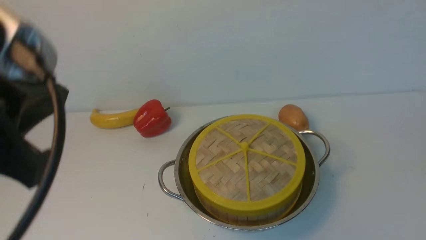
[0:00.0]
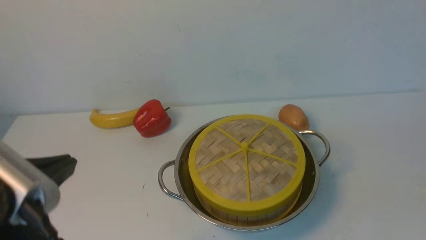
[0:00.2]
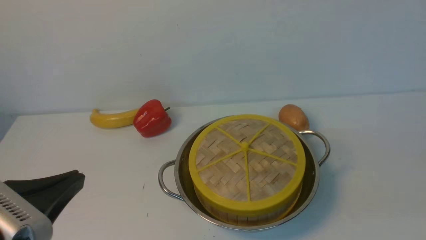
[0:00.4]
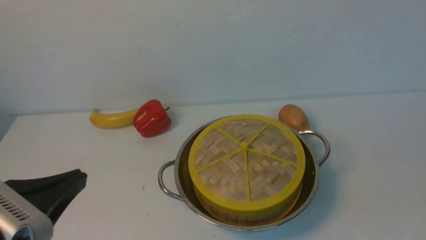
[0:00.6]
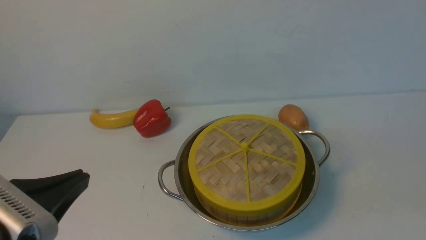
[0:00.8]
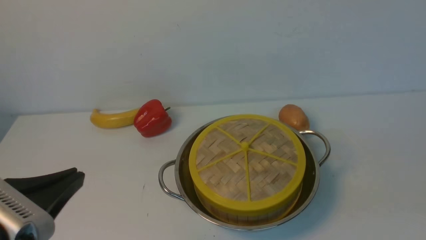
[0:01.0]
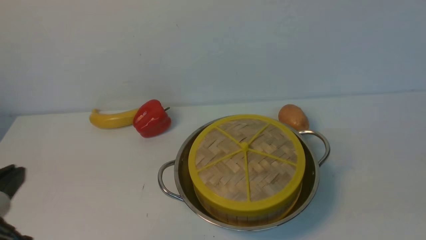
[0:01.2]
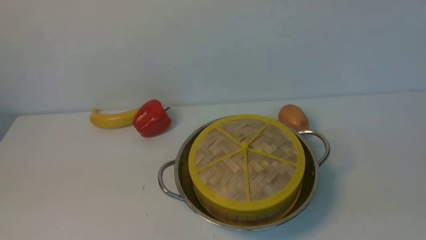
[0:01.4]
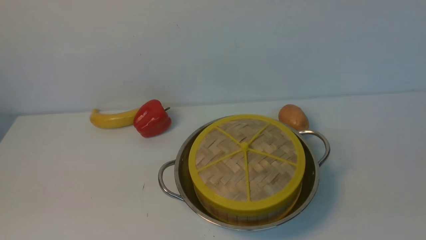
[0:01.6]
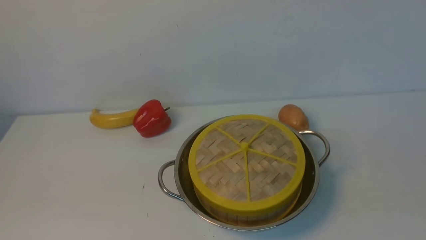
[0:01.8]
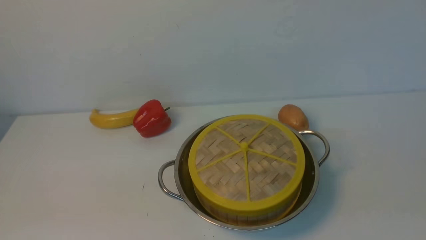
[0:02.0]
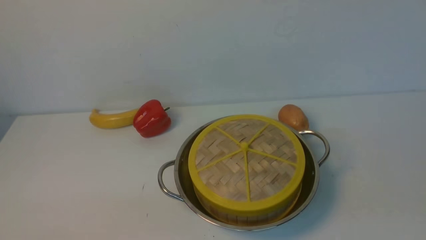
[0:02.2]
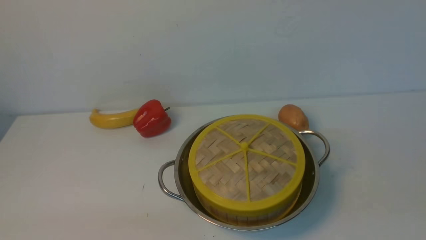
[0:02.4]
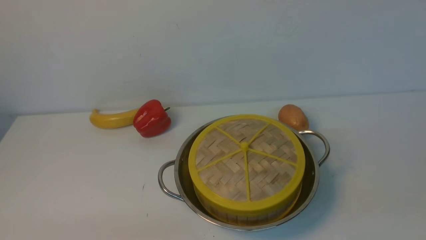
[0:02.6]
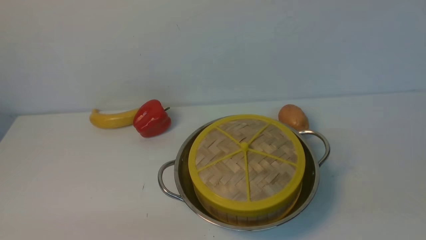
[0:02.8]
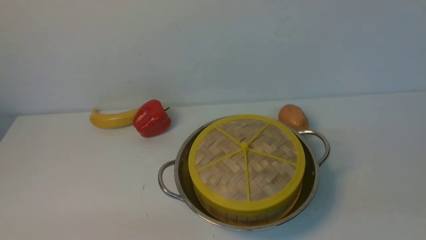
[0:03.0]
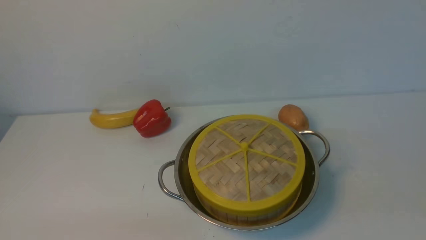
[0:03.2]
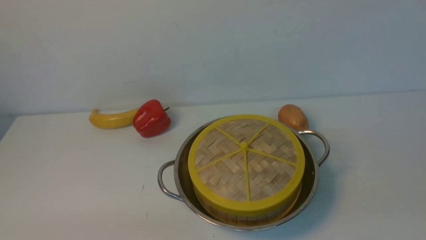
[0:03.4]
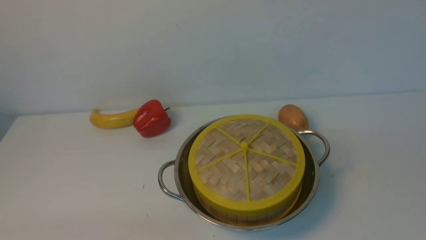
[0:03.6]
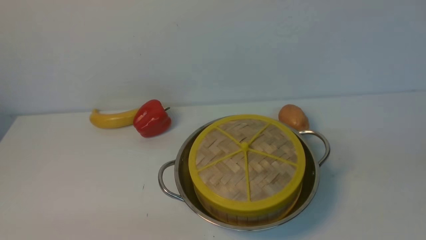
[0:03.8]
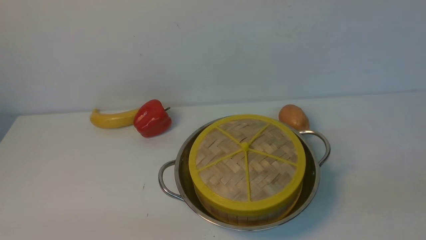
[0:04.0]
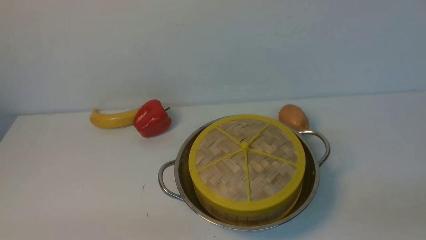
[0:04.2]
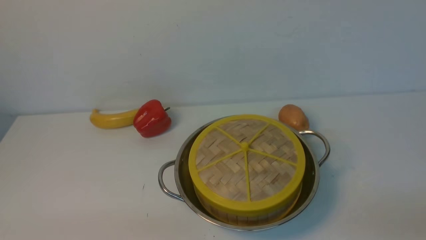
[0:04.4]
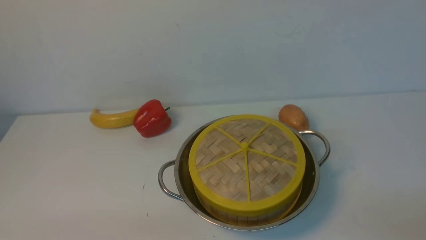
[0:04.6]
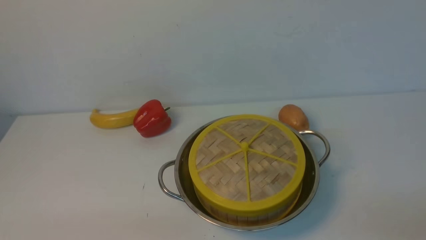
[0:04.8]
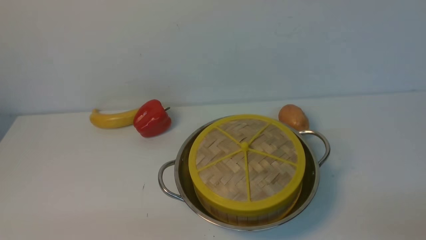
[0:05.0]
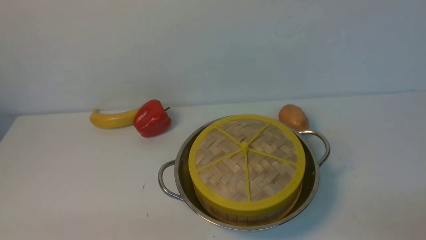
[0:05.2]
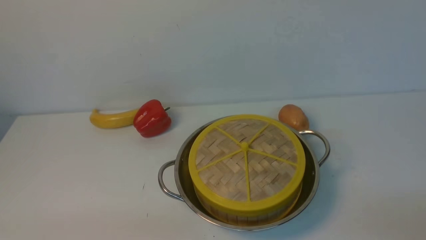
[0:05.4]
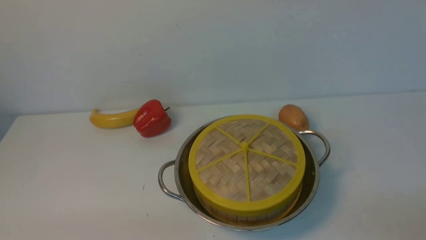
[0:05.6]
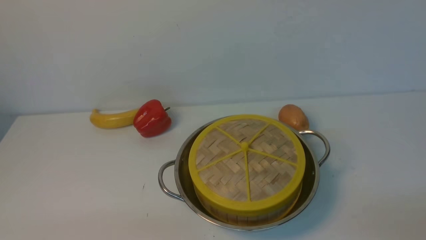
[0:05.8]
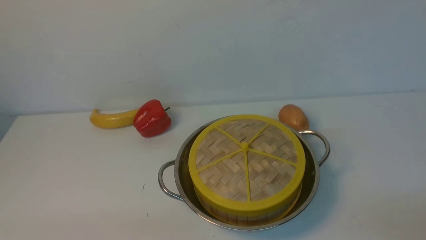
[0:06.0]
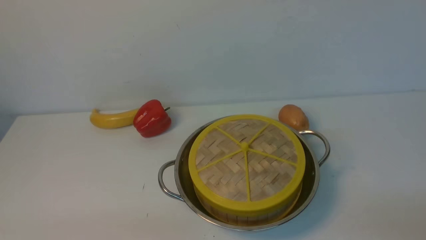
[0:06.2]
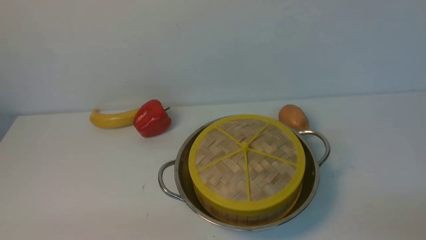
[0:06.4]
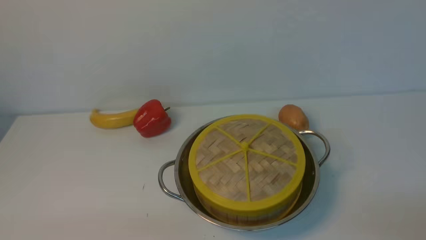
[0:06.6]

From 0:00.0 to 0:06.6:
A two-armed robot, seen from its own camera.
Task of the whole recording: place the steamer in the pot on the white table, and put the lid on the steamer.
From 0:00.0 to 0:01.6: The left gripper goes roughly 15 cm downward, backward and to the left.
From 0:05.0 to 0:06.6: Neither gripper changes place.

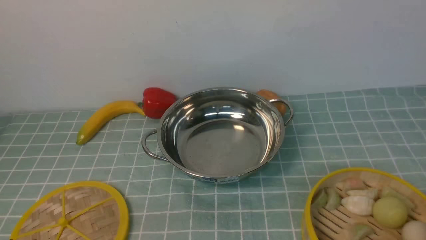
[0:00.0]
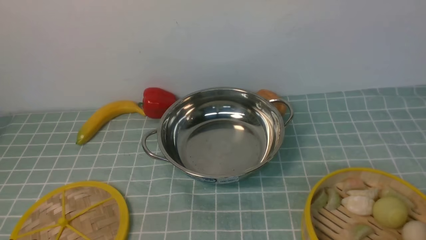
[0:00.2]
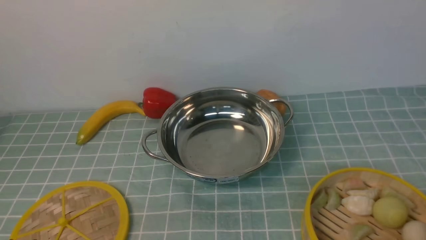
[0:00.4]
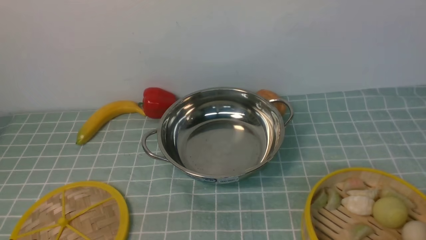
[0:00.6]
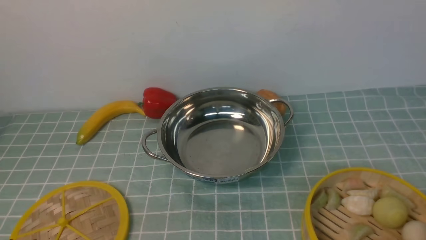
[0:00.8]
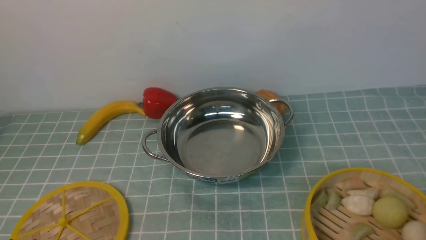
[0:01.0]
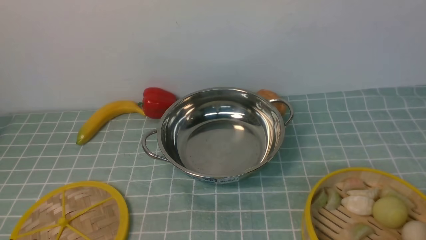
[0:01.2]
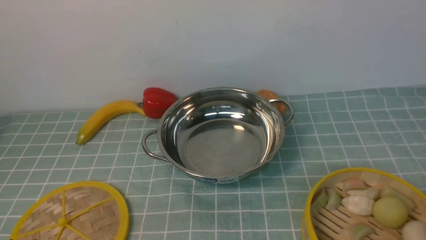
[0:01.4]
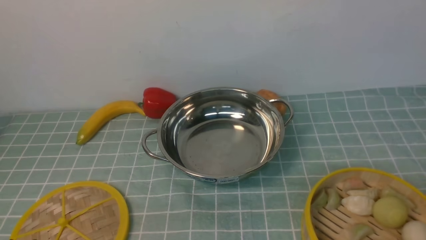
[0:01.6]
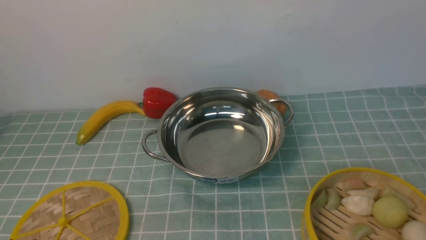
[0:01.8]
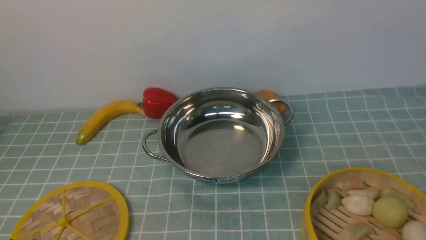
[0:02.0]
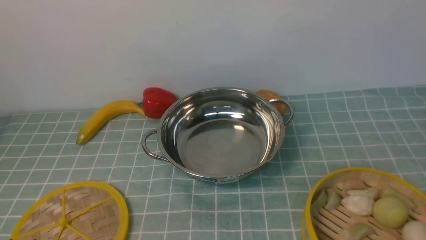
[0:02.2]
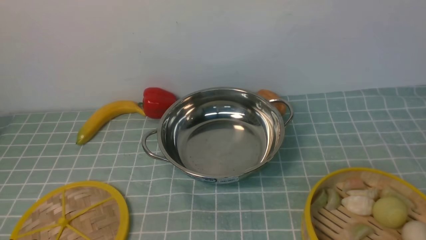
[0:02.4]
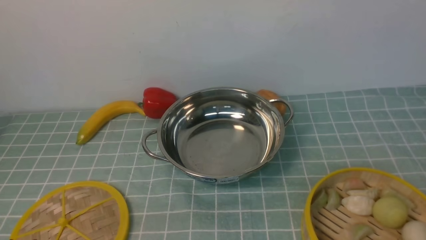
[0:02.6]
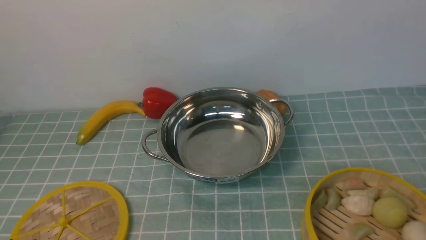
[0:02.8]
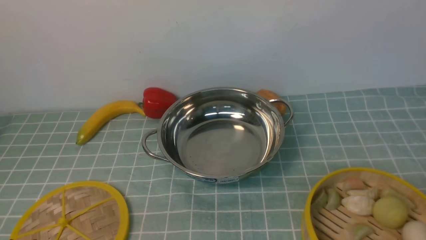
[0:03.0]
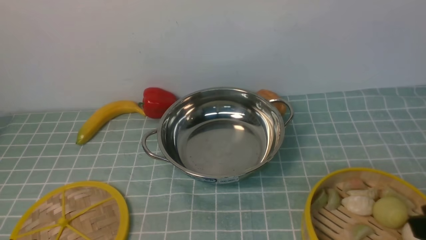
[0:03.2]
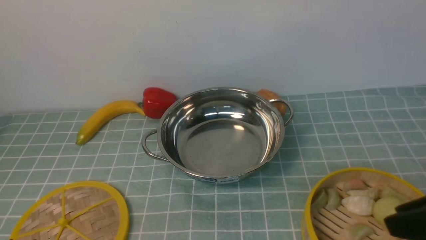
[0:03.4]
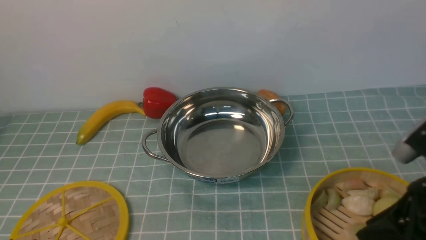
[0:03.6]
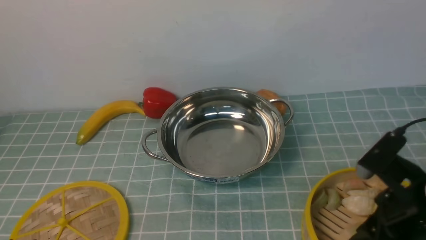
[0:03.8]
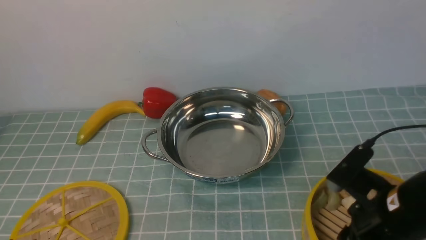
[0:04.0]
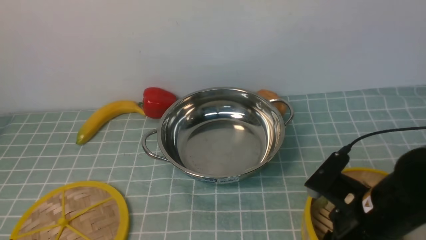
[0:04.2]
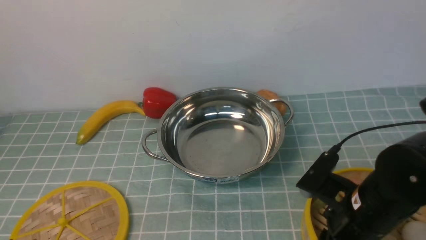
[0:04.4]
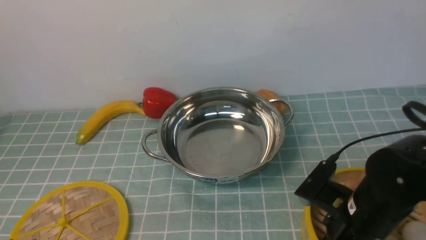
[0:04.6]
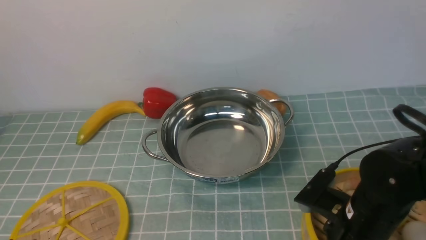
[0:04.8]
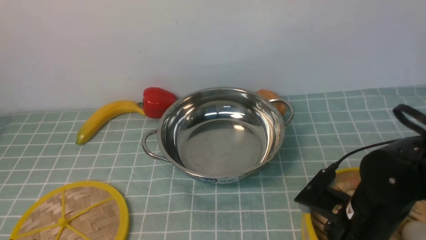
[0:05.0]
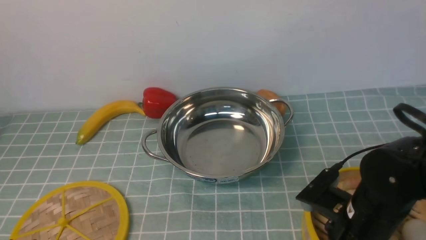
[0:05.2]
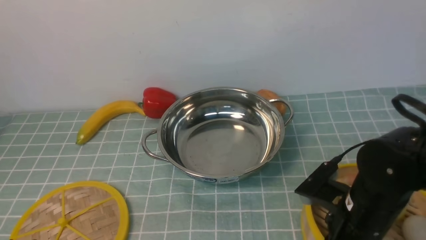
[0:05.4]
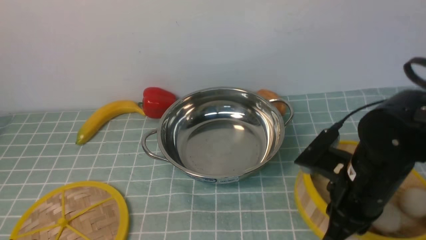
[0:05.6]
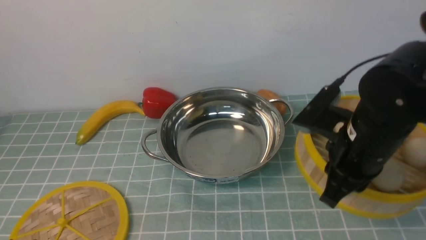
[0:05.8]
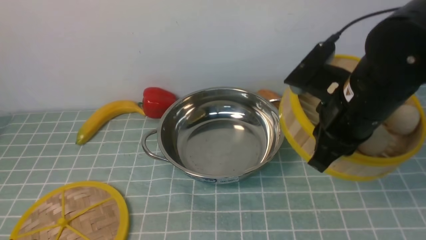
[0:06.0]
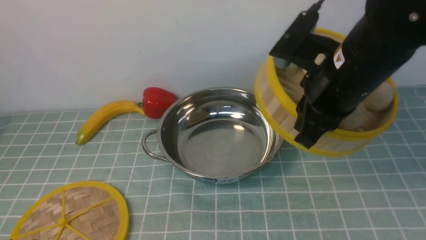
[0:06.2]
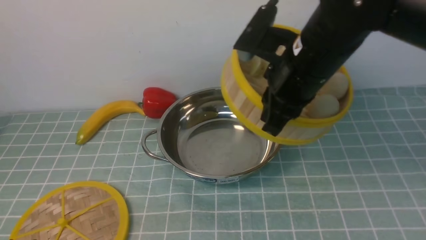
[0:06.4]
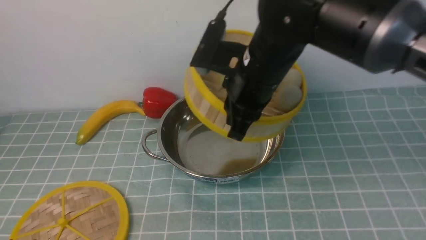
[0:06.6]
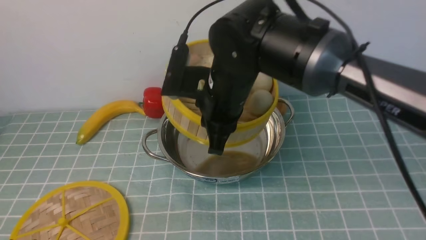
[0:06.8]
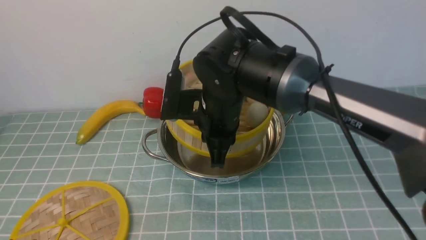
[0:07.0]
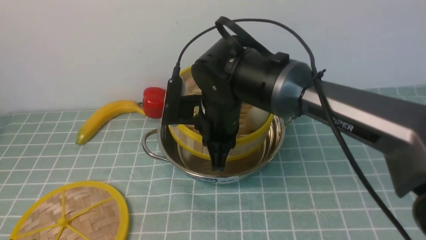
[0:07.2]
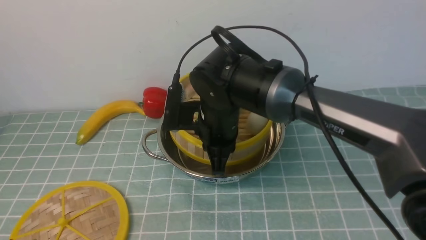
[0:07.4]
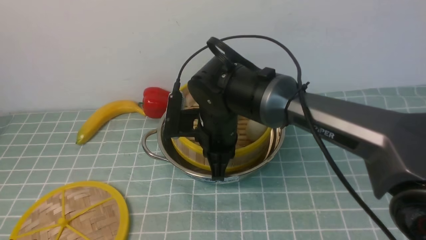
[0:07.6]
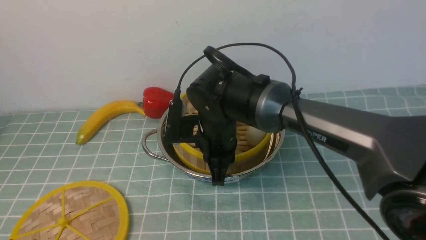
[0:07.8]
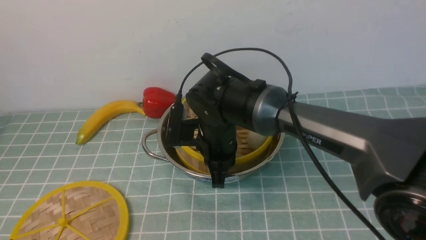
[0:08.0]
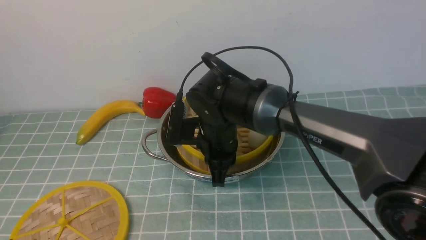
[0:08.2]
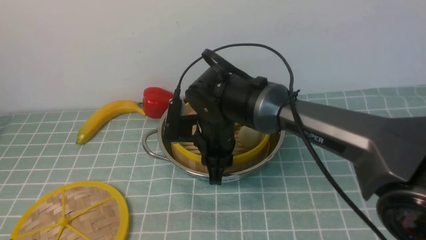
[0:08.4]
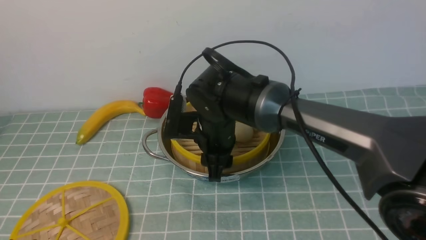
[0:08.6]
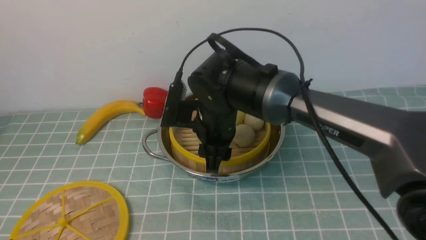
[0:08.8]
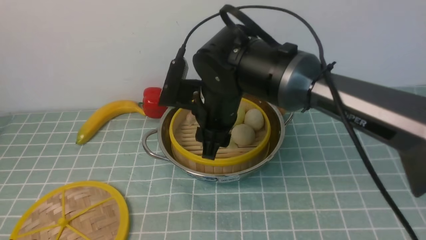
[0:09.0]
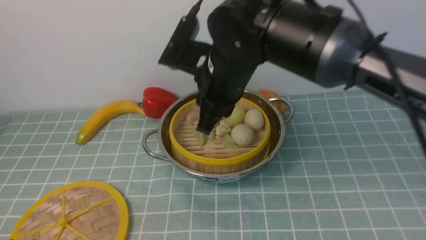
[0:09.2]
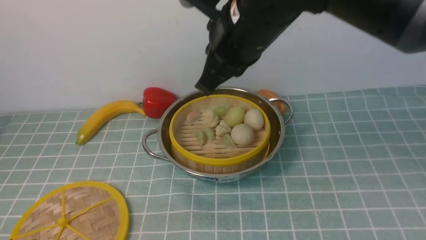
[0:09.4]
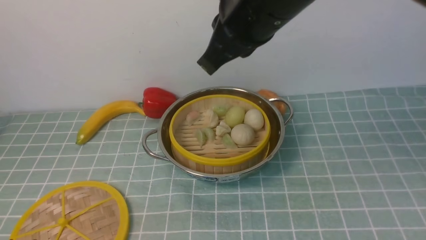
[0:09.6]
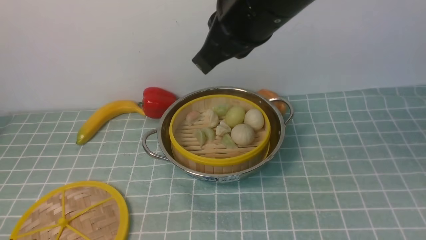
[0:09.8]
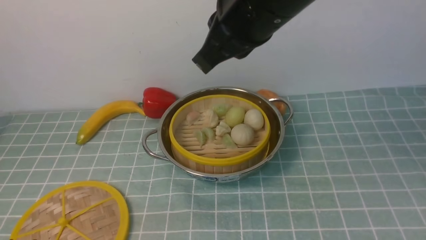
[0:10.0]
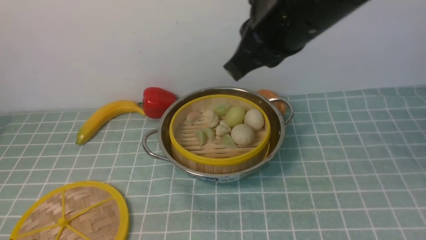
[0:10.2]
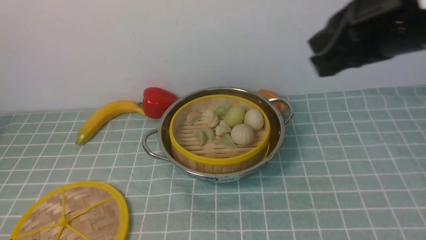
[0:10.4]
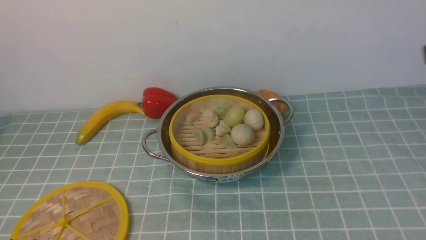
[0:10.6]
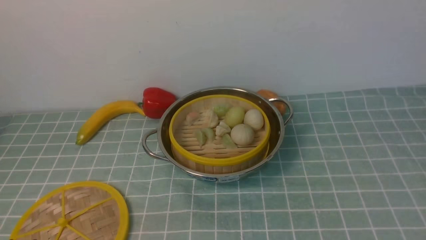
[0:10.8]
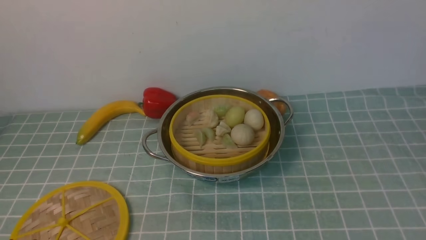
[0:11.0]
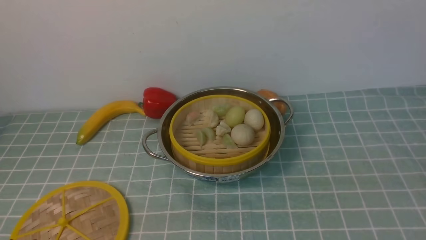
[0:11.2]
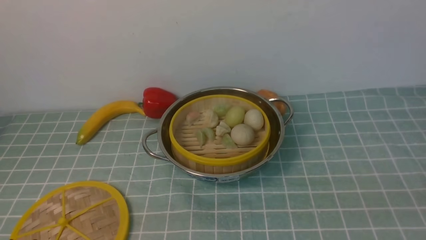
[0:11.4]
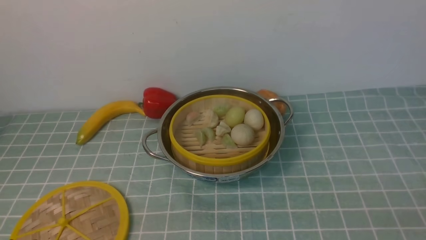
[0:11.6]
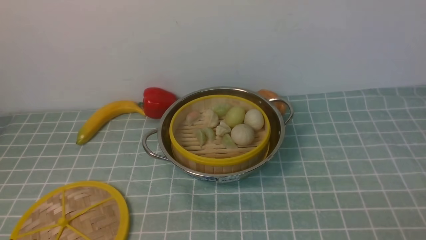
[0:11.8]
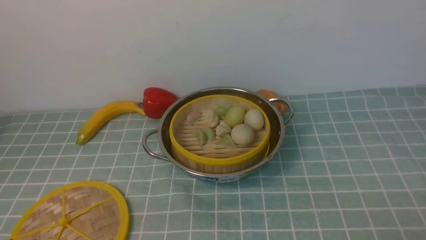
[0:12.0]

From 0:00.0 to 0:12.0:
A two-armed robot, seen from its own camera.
Task of the whole recording: place the steamer in the pot on the blue tablecloth, and put the lid on the steamer.
Step, from 0:00.0 to 0:06.0: use the right arm to lift the steamer closest to it.
Step, from 0:06.4 to 0:09.0: use the right arm to put the steamer into the iron steamer pot in the middle.
From 0:03.0 to 0:04.4: The right gripper goes some 20 cm downward, forward and to the left.
From 0:04.4 to 0:06.0: The right gripper heads upward and forward, covering roughly 15 cm, and closes its fingers.
From 0:06.0 to 0:07.6: The right gripper heads to the left, downward and forward, covering about 20 cm.
From 0:07.6 to 0:09.0: The right gripper heads upward, covering approximately 5 cm, and opens its fingers.
From 0:09.0 to 0:10.4: The right gripper moves to the right, upward and backward, roughly 25 cm, and closes its fingers.
From 0:10.4 to 0:12.0: The right gripper heads downward, backward and to the right, covering roughly 30 cm, and opens up.
